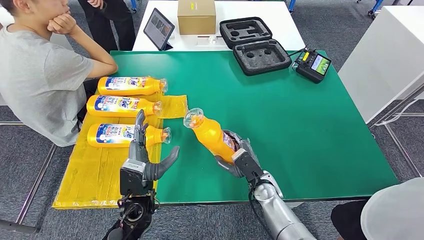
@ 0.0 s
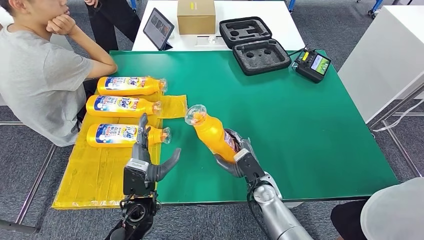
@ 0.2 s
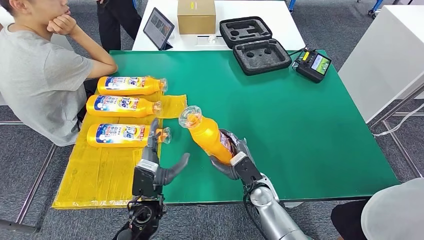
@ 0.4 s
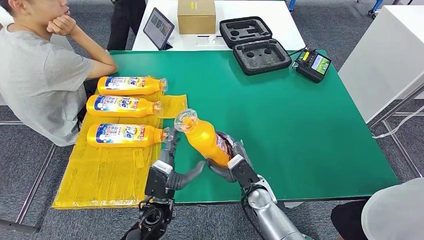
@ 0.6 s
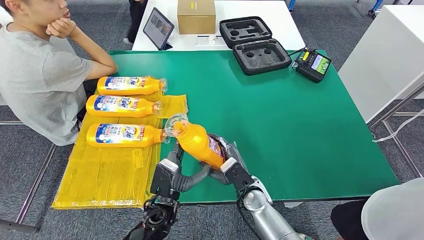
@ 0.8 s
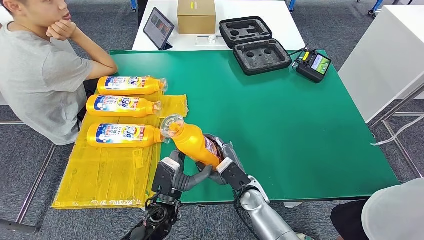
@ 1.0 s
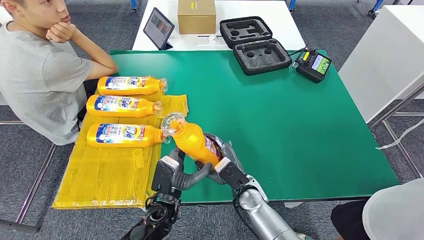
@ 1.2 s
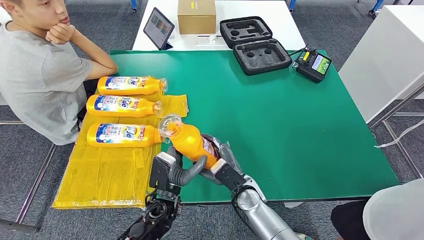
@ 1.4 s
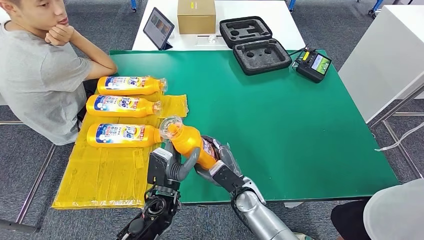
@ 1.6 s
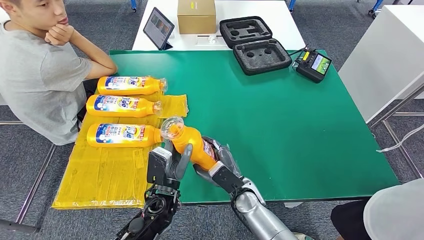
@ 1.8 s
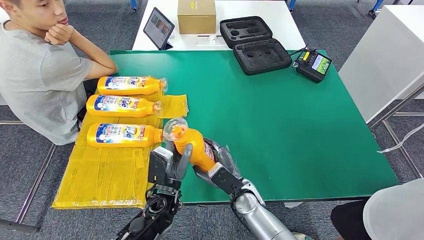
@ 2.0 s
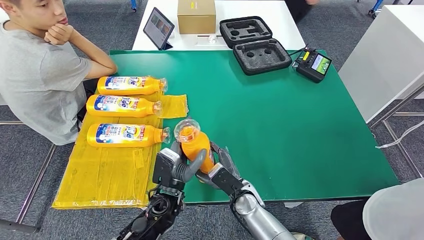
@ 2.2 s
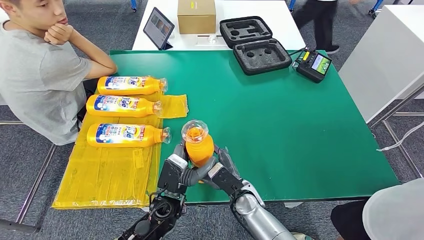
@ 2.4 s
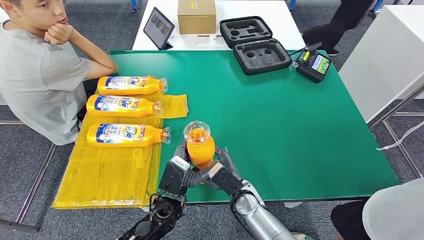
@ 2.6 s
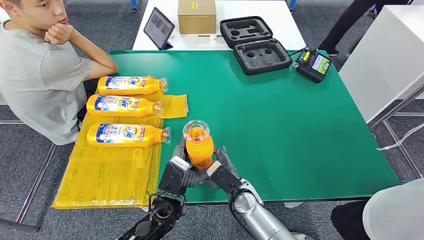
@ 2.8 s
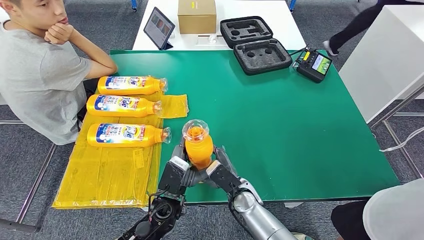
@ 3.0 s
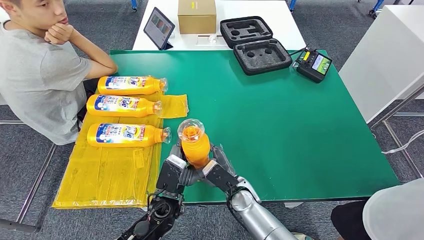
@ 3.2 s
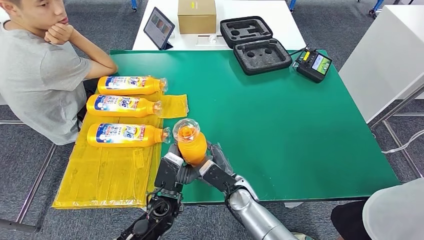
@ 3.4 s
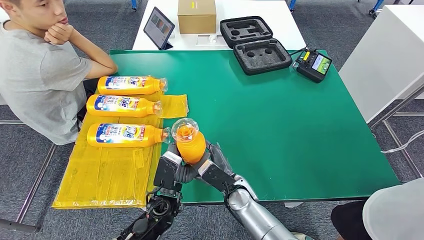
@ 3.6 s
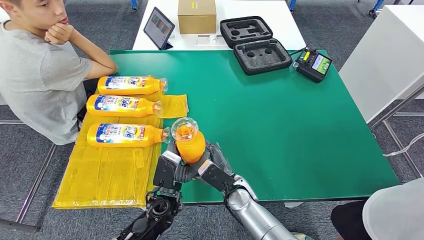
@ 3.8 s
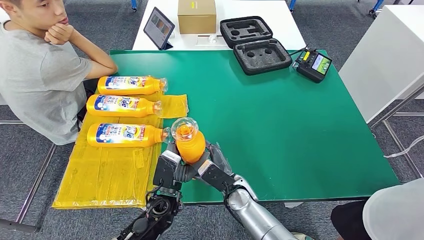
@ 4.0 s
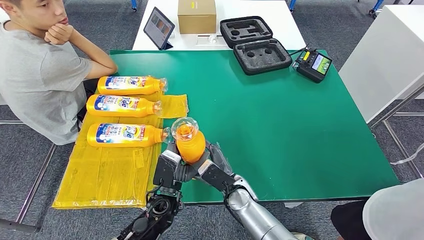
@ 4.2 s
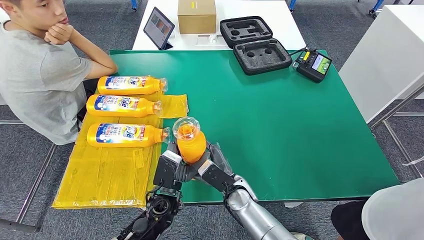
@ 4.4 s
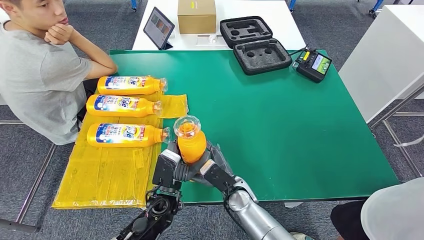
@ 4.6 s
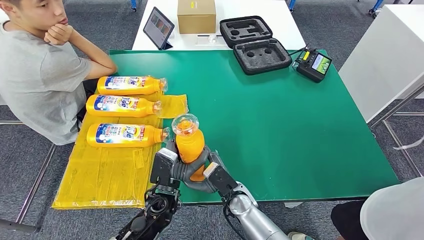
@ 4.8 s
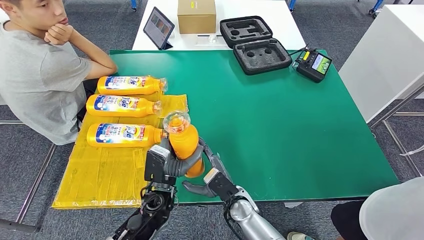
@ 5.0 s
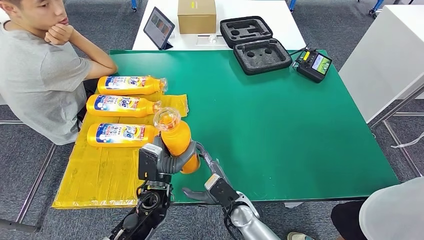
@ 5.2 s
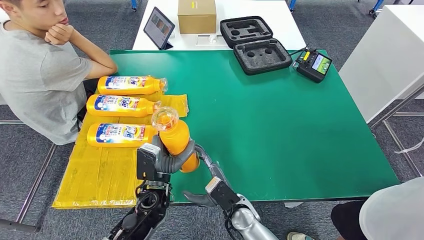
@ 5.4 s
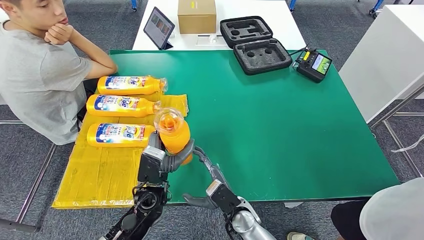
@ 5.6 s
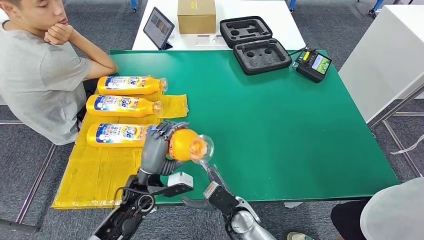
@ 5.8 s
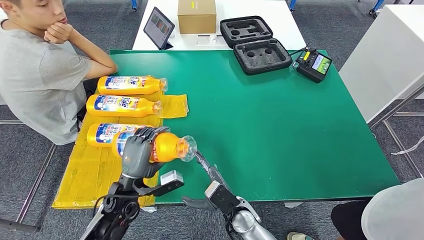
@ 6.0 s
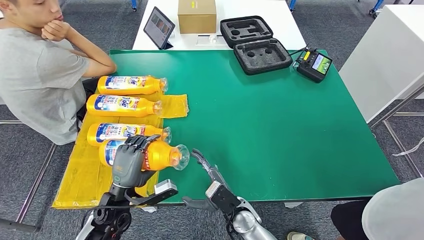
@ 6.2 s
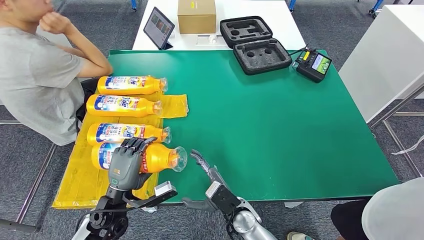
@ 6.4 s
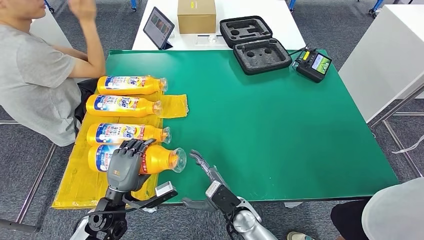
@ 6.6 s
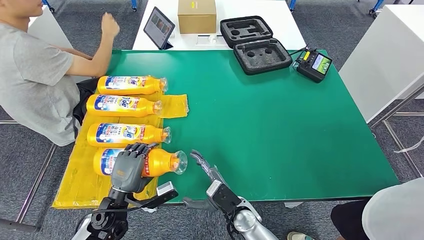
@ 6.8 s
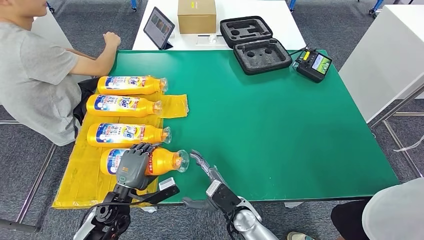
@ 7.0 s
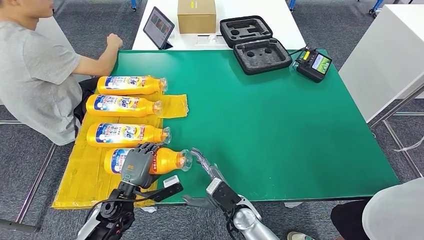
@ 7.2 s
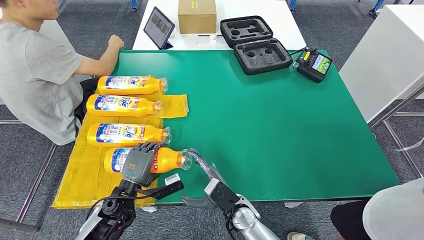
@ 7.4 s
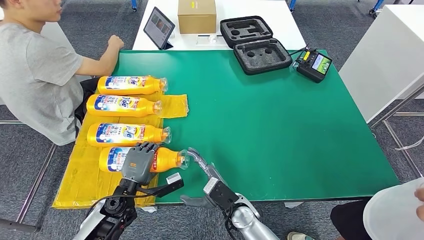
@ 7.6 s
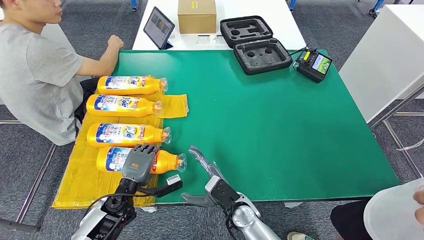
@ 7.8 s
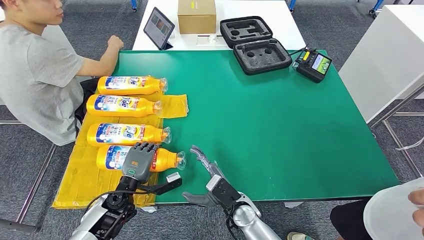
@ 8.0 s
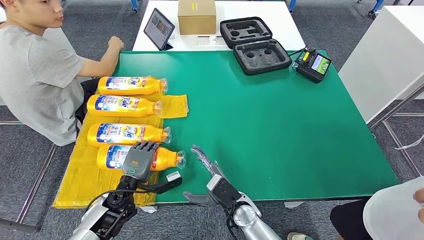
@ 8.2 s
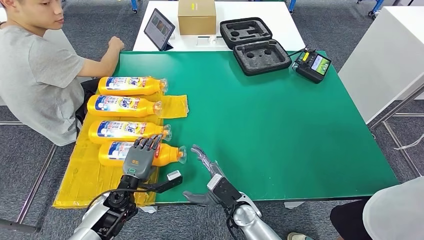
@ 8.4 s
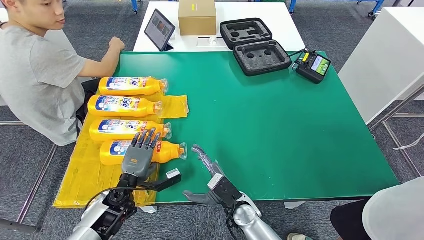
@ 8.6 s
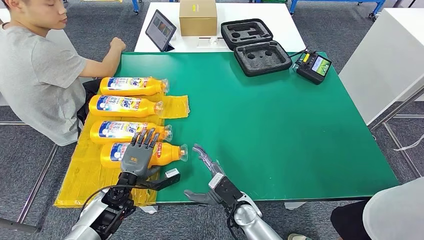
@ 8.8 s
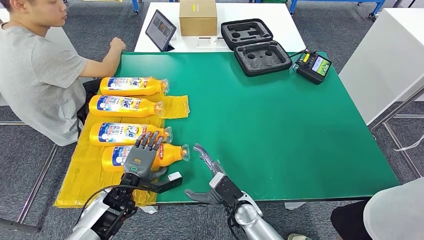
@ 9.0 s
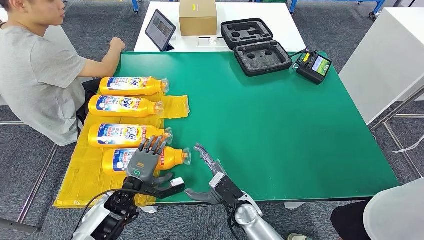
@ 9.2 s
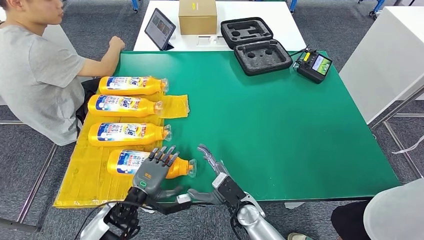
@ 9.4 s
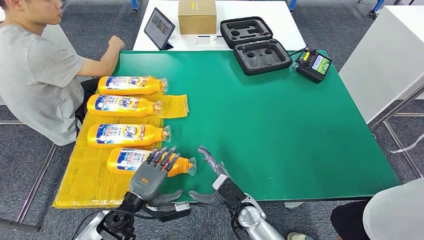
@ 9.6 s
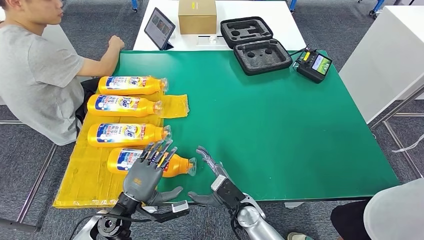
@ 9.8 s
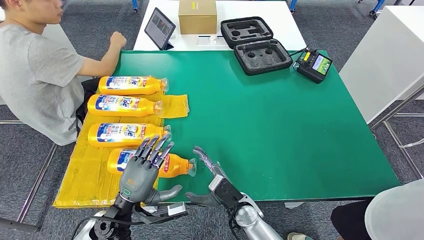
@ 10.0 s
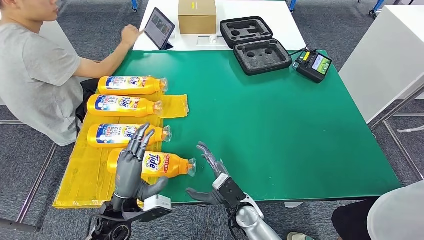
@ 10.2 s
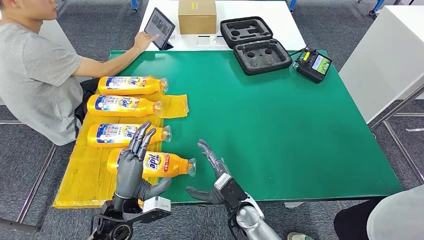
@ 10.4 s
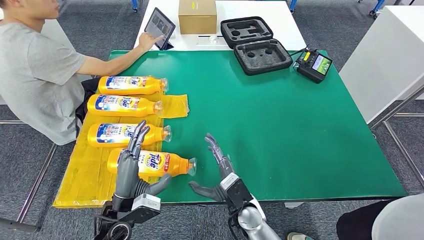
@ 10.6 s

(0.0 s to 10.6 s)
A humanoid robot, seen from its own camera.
Step, 0.4 s - 10.6 s: Flip the bottle to face forward.
0.0 s - 1.6 s: The right hand heads to the left, covering approximately 5 cm. Meanwhile the left hand moves to the right, some 5 cm.
1.6 s - 4.6 s: The hands move only a little.
4.6 s - 6.0 s: The right hand changes place by some 5 cm. Meanwhile the left hand is displaced to the left by some 10 cm.
6.0 s - 7.6 s: The left hand moves roughly 5 cm.
